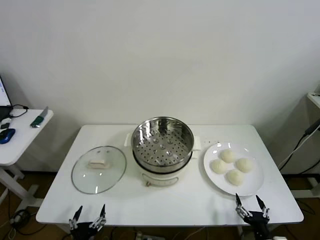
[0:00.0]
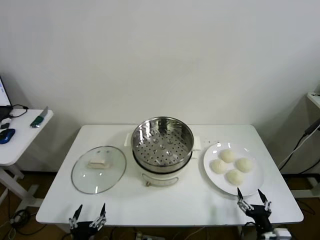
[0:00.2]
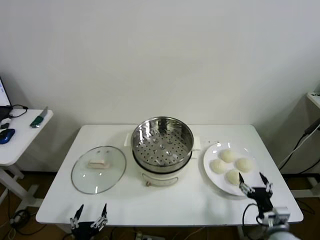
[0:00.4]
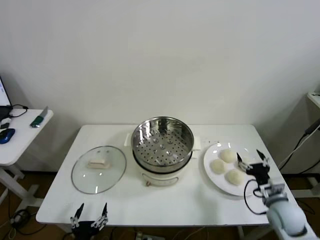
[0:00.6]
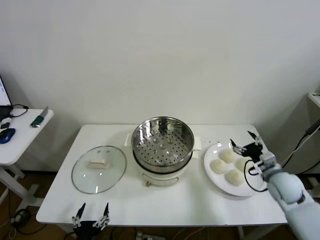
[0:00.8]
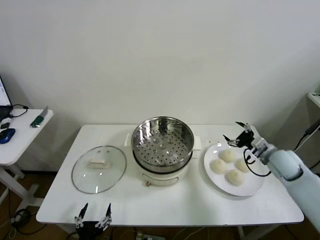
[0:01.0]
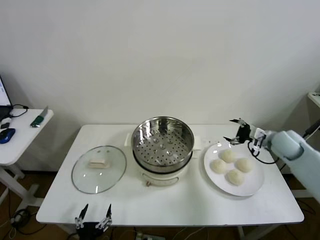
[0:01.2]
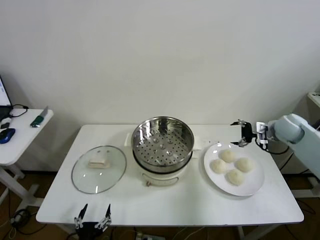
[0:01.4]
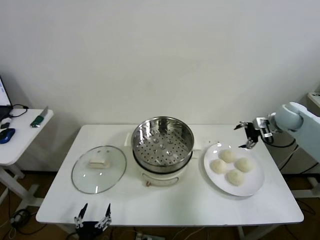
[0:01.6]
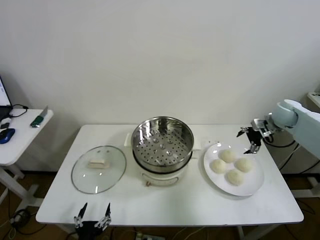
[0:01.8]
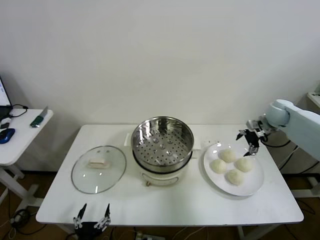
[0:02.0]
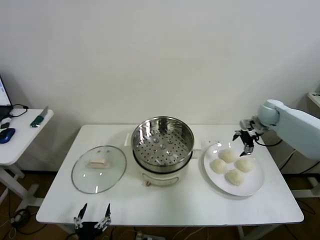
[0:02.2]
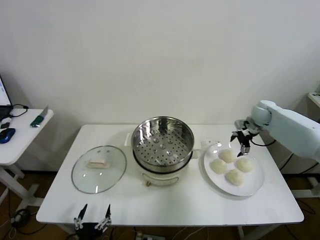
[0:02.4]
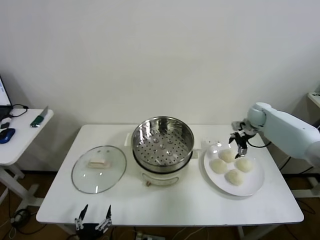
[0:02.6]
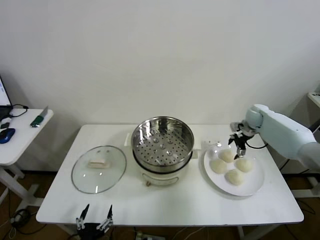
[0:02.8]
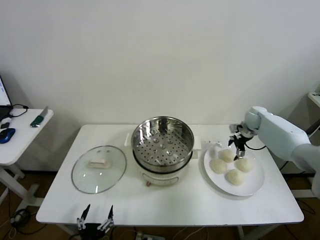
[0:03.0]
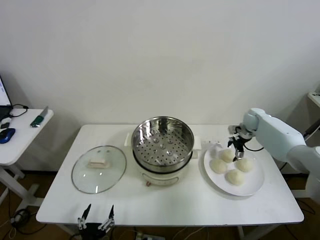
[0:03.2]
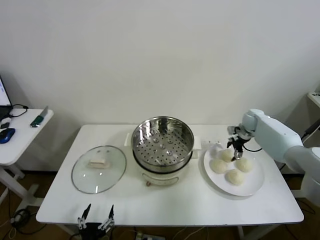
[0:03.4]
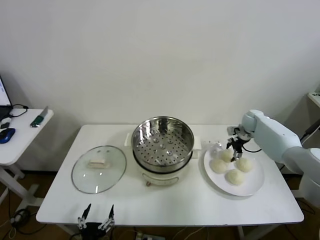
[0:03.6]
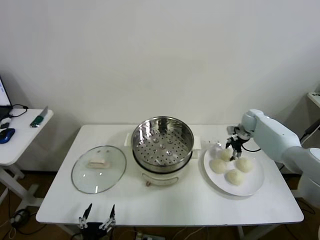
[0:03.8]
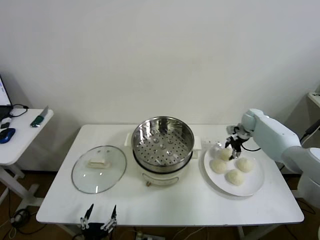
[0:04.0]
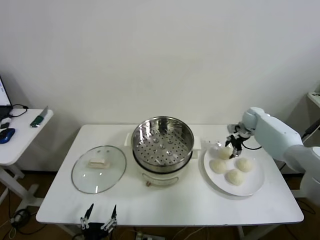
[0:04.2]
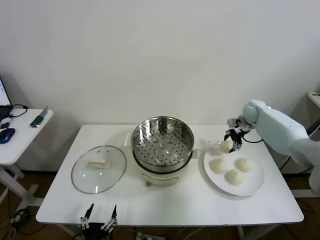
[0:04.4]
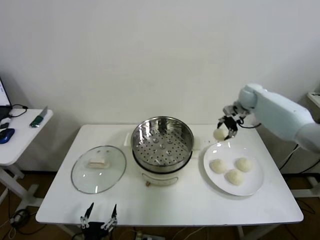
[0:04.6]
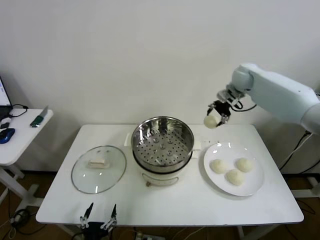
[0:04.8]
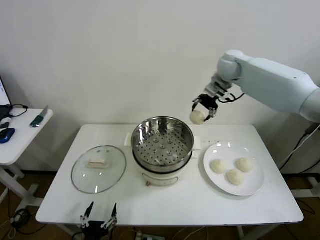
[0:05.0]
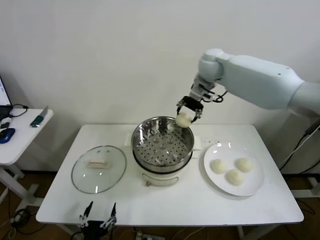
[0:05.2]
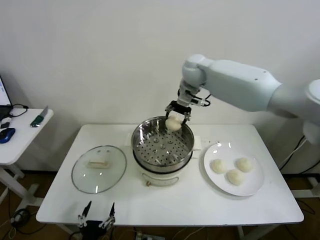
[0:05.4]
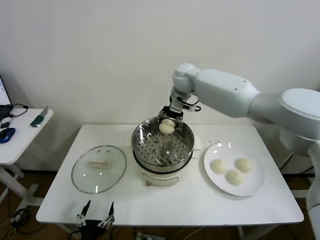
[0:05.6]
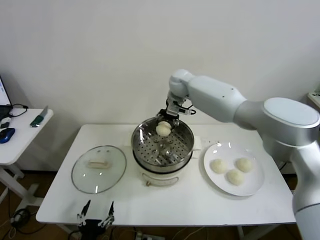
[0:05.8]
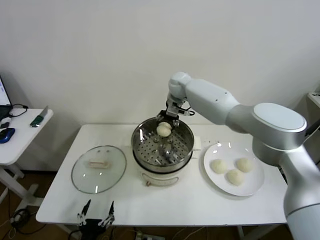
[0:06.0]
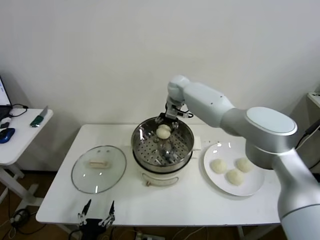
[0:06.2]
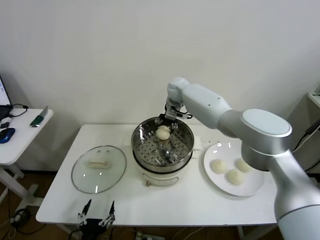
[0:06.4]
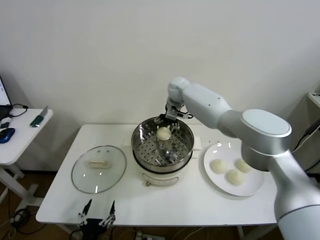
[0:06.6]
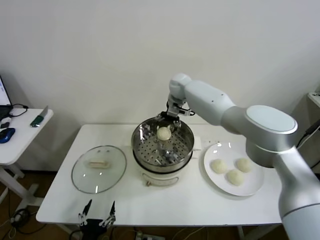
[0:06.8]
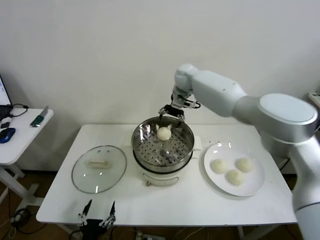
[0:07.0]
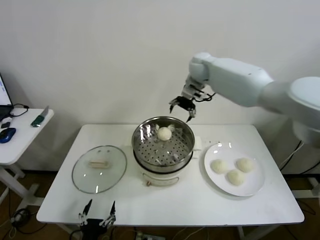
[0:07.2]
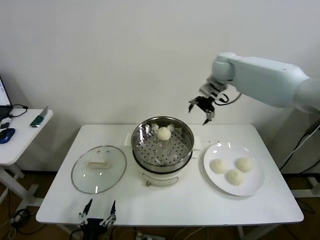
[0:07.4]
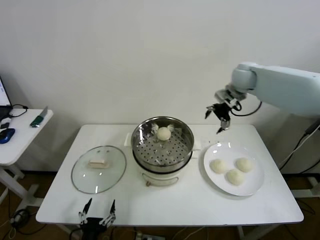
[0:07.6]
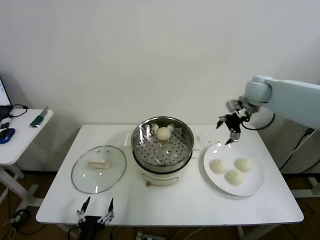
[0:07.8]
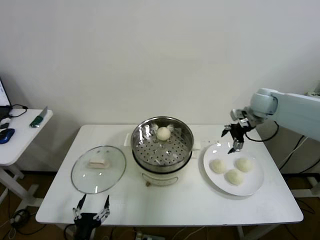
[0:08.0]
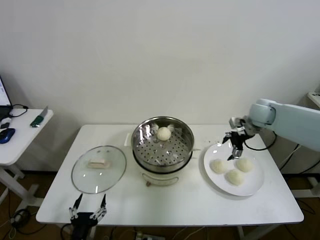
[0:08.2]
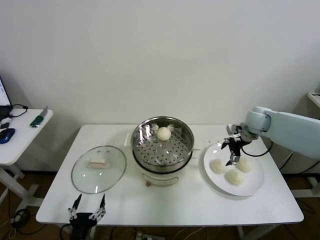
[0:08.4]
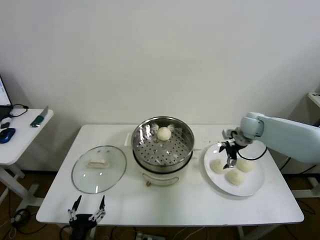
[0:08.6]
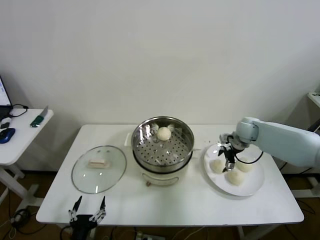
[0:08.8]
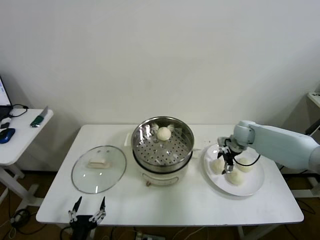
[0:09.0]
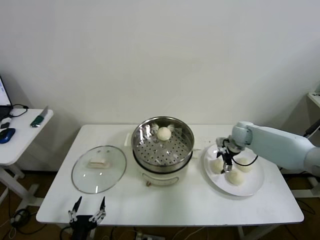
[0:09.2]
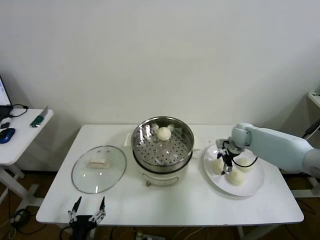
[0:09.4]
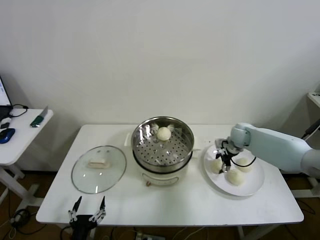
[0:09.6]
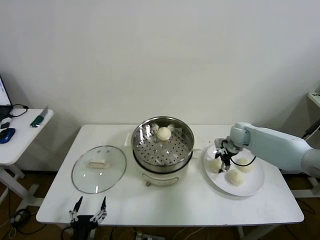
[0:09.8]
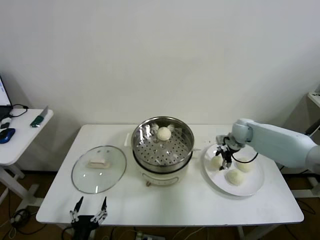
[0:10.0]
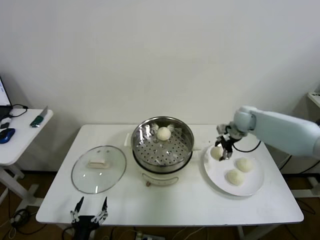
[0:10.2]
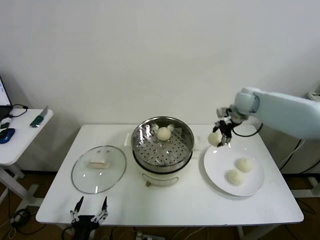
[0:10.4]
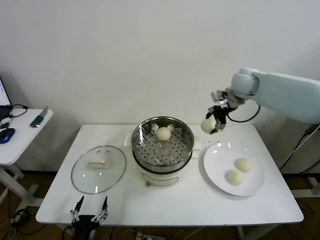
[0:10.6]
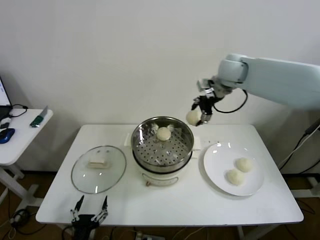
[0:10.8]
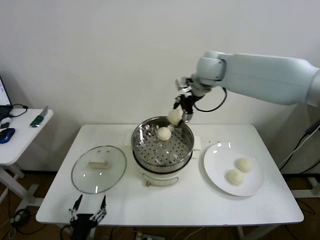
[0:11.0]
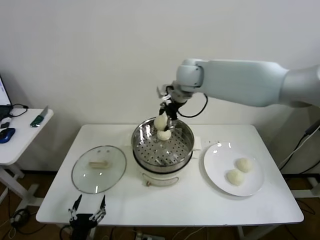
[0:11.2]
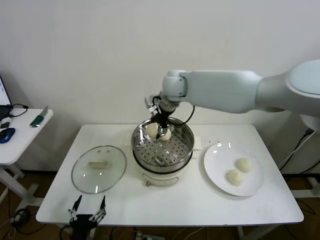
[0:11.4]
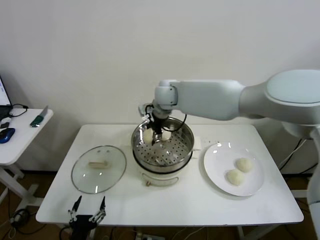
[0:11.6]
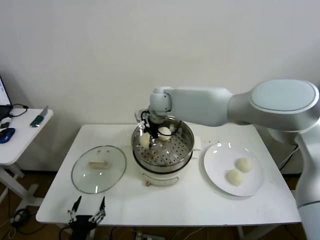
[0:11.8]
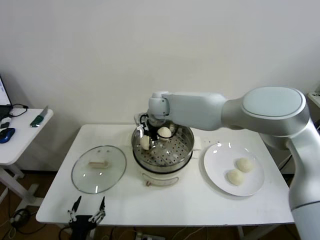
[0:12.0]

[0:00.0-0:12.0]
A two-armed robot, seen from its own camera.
Step, 0:00.0 to 0:03.6: Grasp the baozi in the plate with right gripper.
Step, 0:03.8 to 0:06.4: Place the baozi on the steamer with right gripper.
Step, 0:06.6 to 0:09.4: Grasp the baozi in the plate with right gripper.
0:01.6 to 0:03.0: The right gripper is displaced downward and forward by approximately 10 cm.
0:03.0 to 0:04.4: The right gripper goes some 5 cm upward, and closes up.
0:04.4 to 0:06.0: The right gripper moves to the left, about 30 cm.
0:06.0 to 0:07.6: The right gripper moves to the right, some 25 cm, and opens up.
0:07.6 to 0:09.0: The right gripper shifts approximately 20 cm downward.
0:09.0 to 0:10.4: The right gripper goes about 15 cm upward, and closes its fingers.
0:10.4 to 0:12.0: The right gripper moves to the left, about 30 cm.

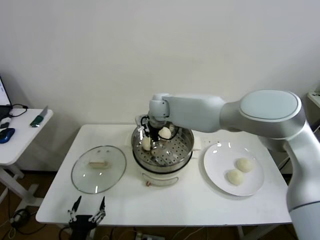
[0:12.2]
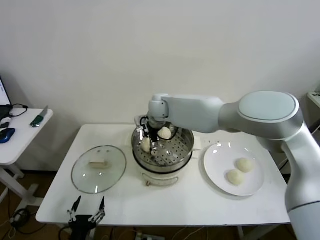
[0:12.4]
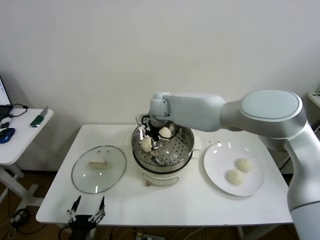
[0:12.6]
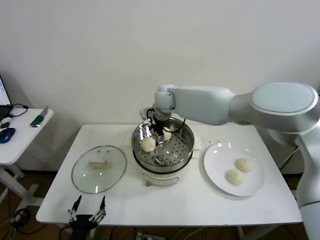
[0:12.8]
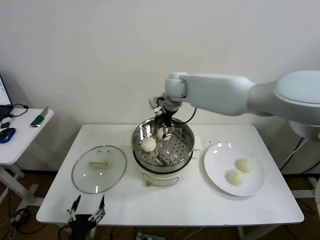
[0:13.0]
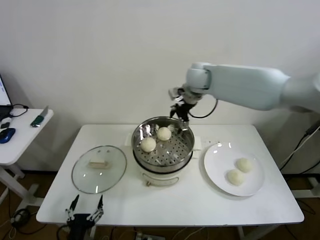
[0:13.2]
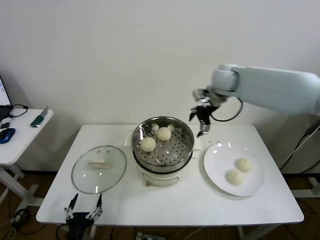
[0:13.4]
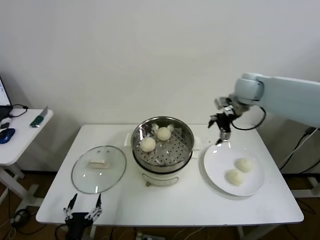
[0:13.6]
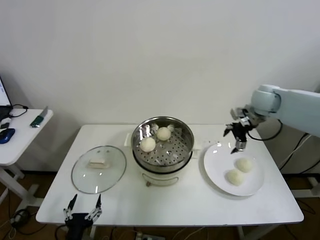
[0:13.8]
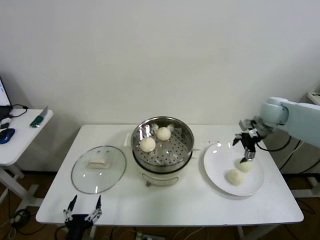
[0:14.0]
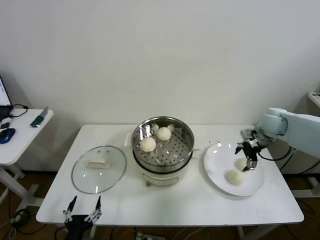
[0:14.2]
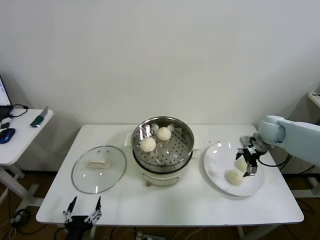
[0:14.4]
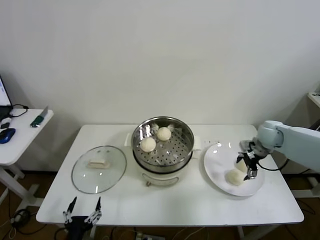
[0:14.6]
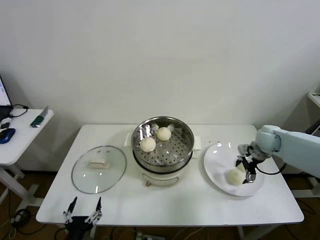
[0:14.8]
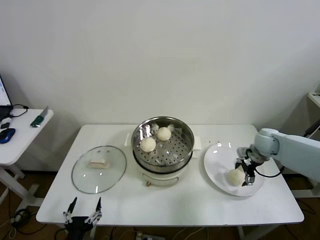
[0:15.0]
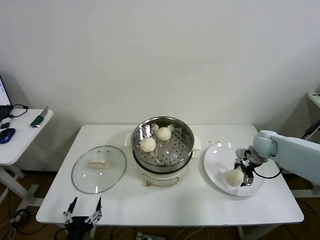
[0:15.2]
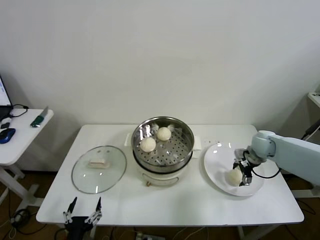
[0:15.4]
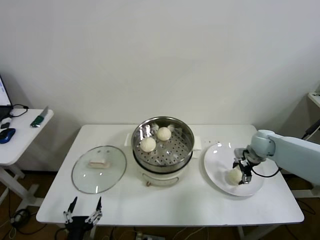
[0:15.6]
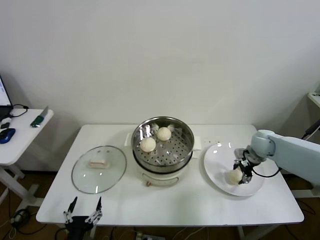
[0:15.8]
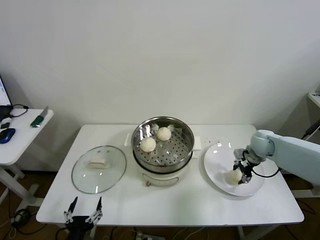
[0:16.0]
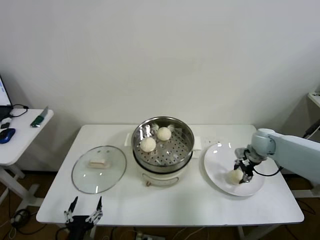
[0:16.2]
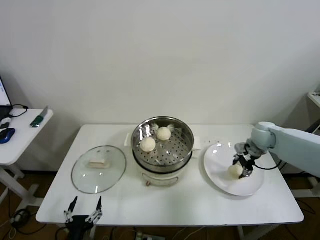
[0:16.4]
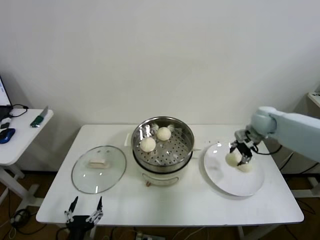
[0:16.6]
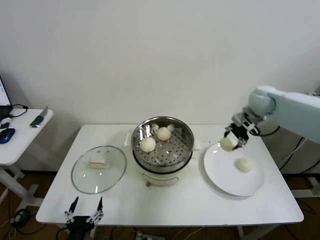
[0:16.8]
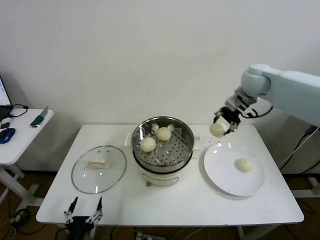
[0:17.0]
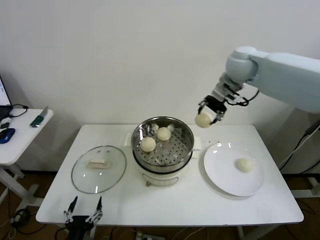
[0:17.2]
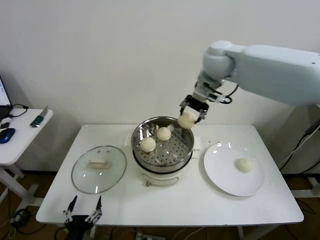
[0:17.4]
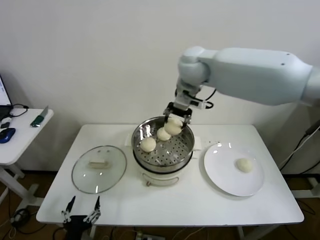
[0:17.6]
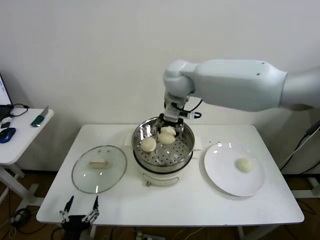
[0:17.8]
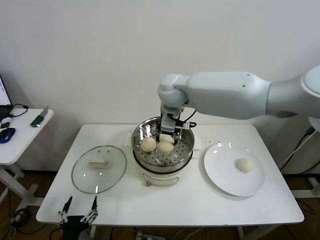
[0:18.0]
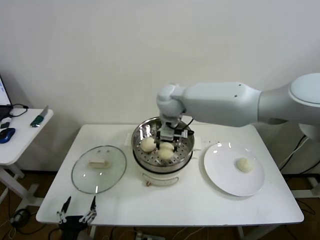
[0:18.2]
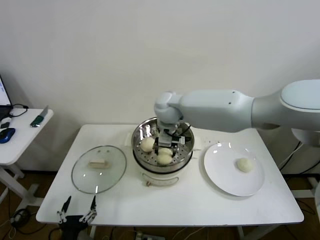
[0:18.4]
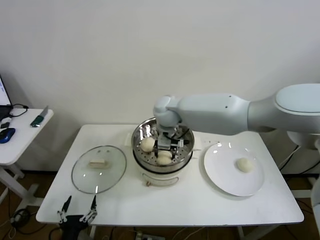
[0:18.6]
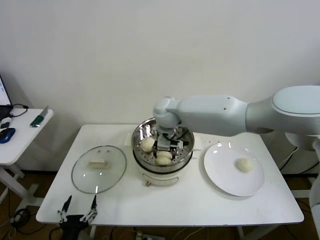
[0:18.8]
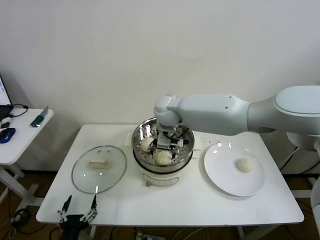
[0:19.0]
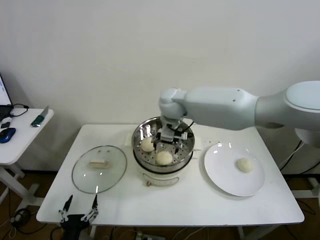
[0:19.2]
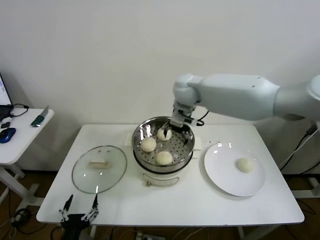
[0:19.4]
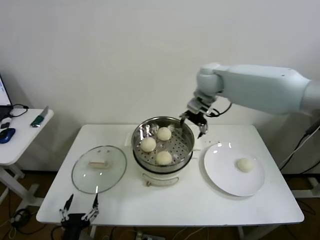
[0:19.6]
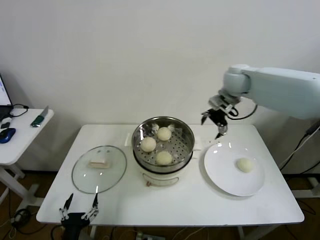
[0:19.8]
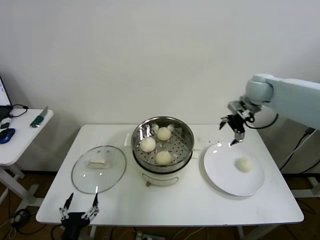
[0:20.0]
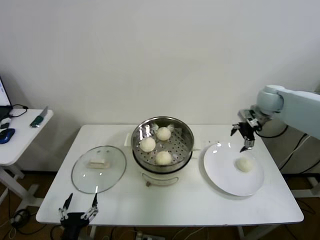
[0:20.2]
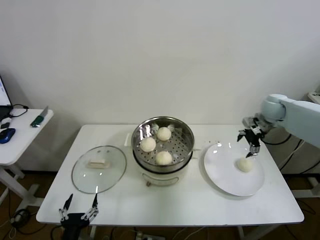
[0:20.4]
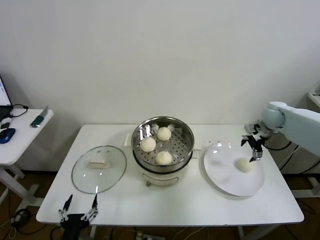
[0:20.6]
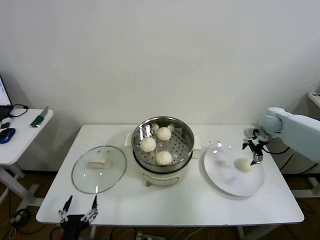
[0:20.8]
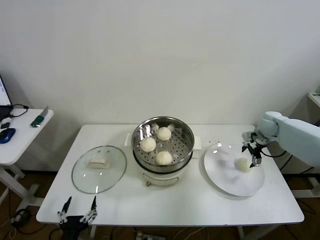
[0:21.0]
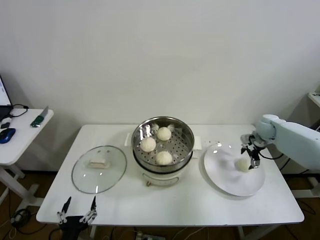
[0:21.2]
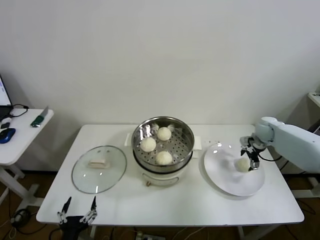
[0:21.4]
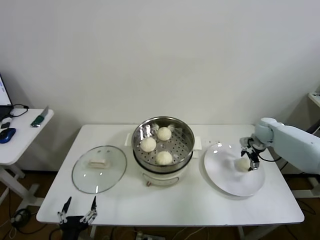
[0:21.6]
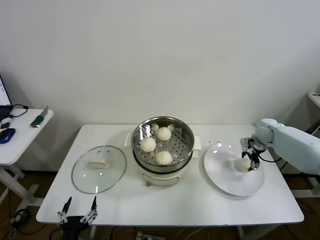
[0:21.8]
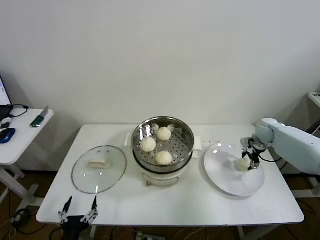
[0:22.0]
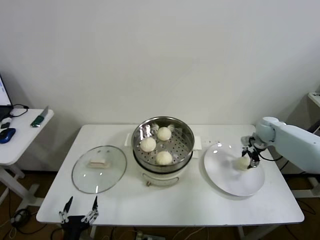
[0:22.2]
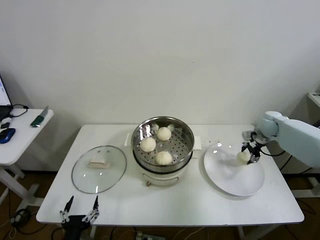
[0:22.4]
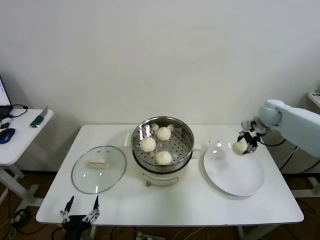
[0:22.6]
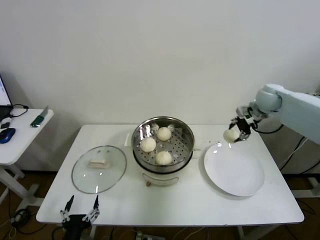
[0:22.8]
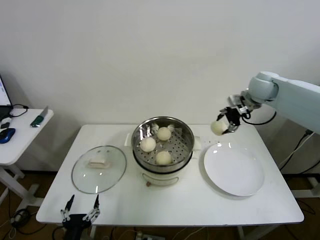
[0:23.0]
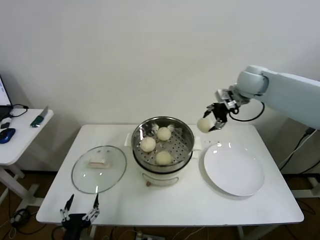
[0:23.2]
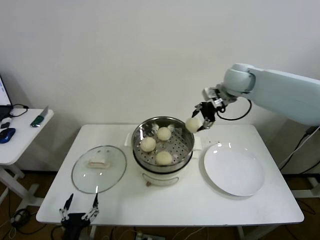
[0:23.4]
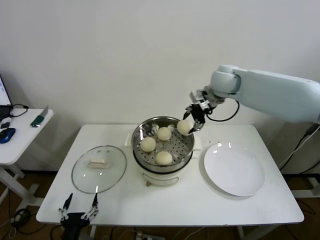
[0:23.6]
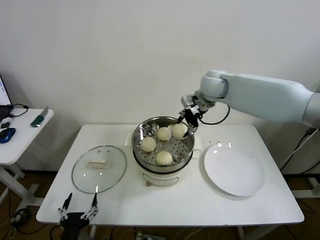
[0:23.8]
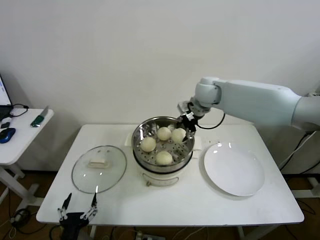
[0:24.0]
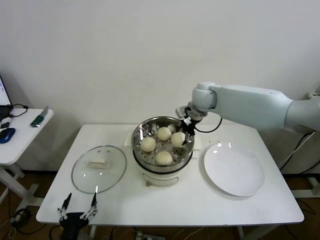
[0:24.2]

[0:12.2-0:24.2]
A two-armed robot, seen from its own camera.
Step, 0:12.6 to 0:15.6: Grasp the baozi in the plate with right gripper.
Step, 0:15.8 to 0:18.8: Place the baozi on the steamer with right gripper.
Step, 0:19.0 to 0:21.6: Grasp the baozi in the plate with right gripper.
0:12.2 to 0:13.8: The right gripper heads to the right, covering some 35 cm, and opens up.
0:13.8 to 0:15.2: The right gripper moves downward, some 15 cm.
0:15.2 to 0:16.6: The right gripper heads upward, covering about 10 cm, and closes.
0:16.6 to 0:18.2: The right gripper shifts roughly 35 cm to the left.
0:18.2 to 0:19.8: The right gripper shifts roughly 25 cm to the right, and opens.
0:19.8 to 0:21.2: The right gripper is displaced downward and to the right by roughly 25 cm.
0:21.2 to 0:22.6: The right gripper is displaced upward by some 10 cm, and closes.
0:22.6 to 0:24.2: The right gripper moves to the left, roughly 25 cm.
